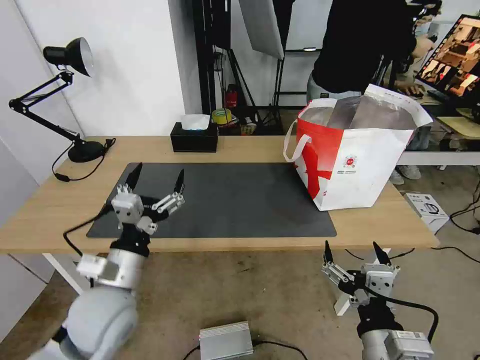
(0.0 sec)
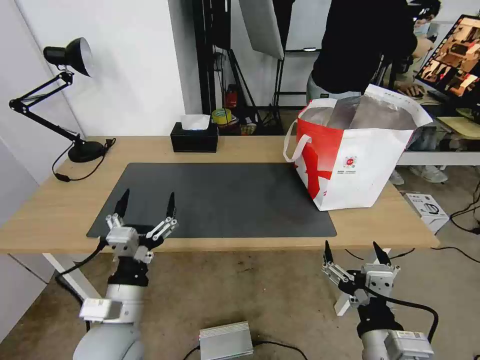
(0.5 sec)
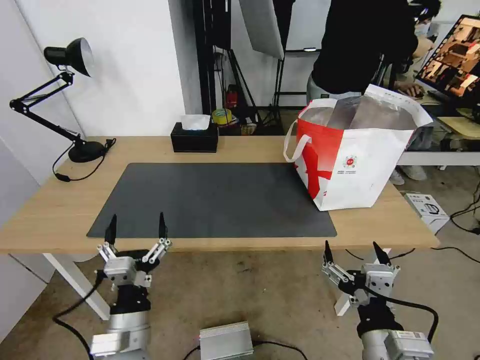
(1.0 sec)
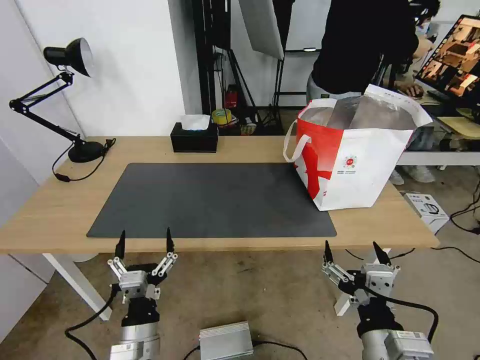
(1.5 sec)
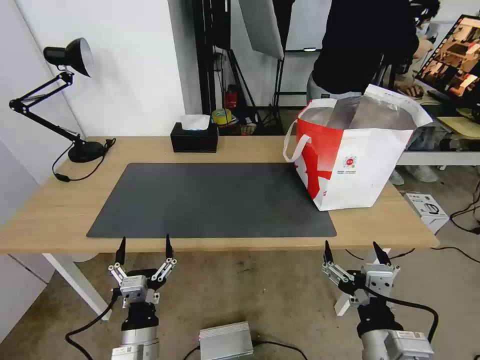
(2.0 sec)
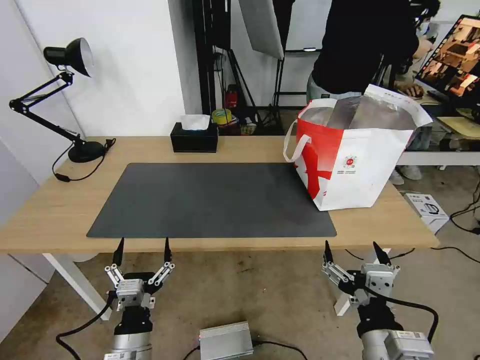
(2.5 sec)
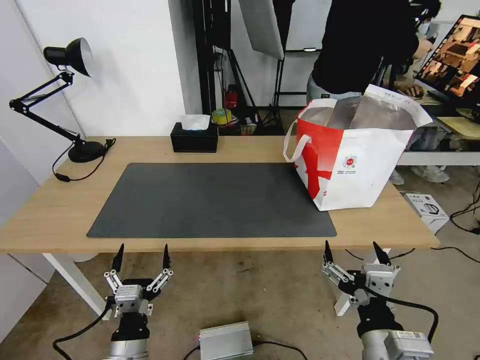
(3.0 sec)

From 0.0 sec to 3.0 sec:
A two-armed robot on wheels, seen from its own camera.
Task of the whole recording: Pick up the trash from the table and place it into the takeout bag.
From 0.0 sec to 1.5 sec: The left gripper is displaced downward and backward by some 15 cm.
From 1.5 sec to 3.0 sec: The grippers stay close to where they were, moving slightly.

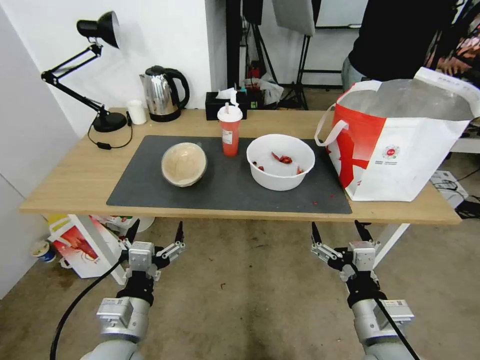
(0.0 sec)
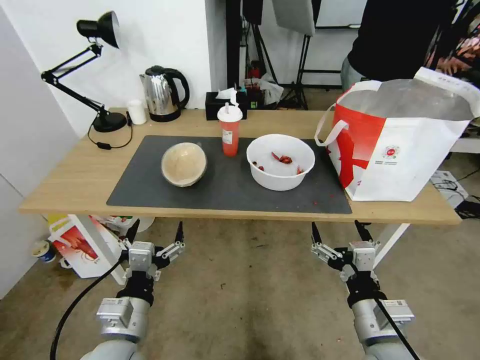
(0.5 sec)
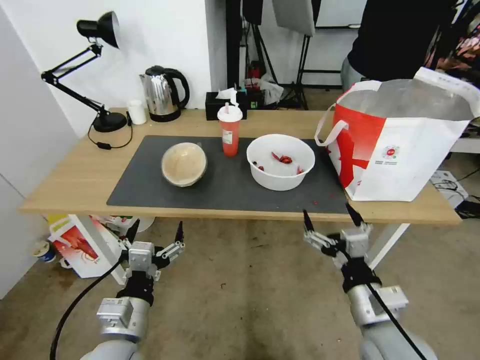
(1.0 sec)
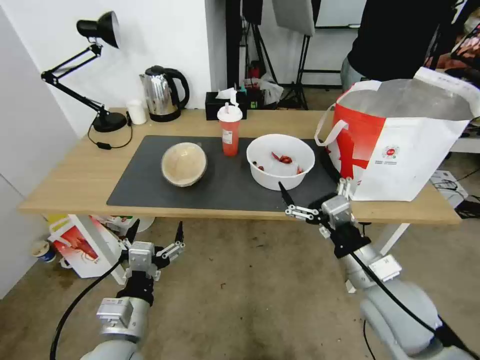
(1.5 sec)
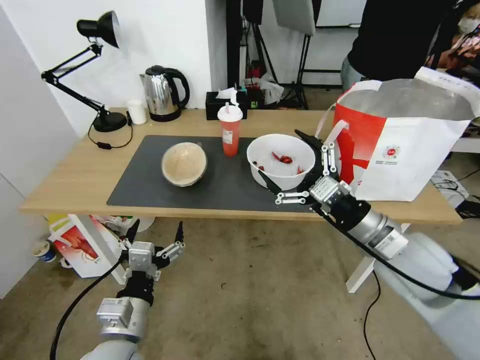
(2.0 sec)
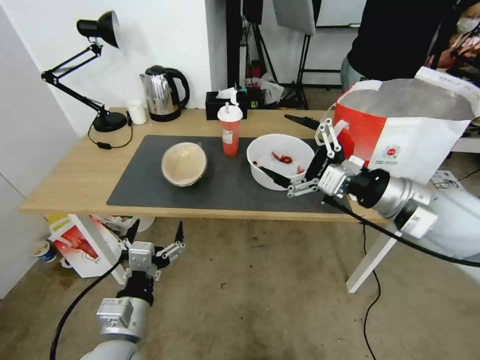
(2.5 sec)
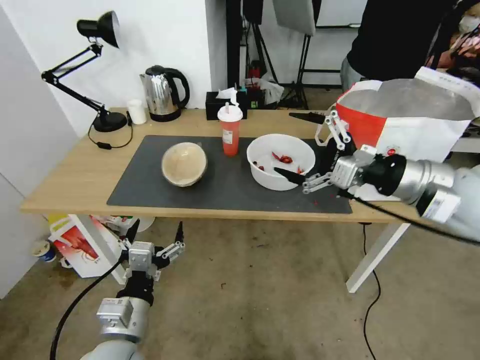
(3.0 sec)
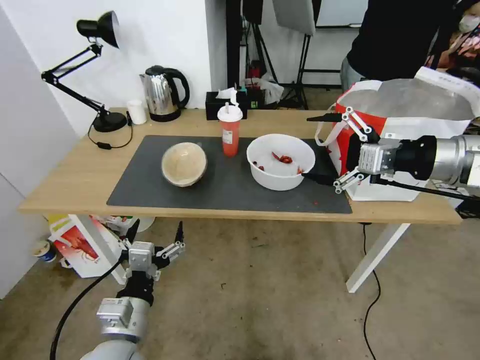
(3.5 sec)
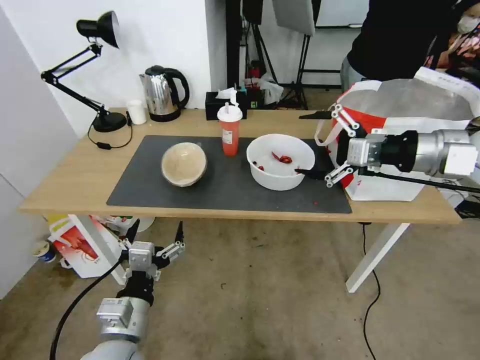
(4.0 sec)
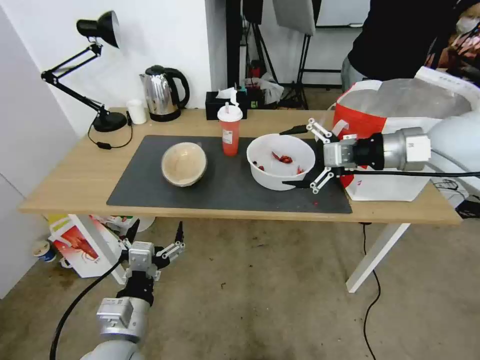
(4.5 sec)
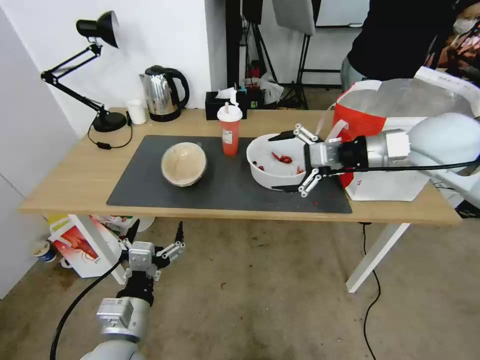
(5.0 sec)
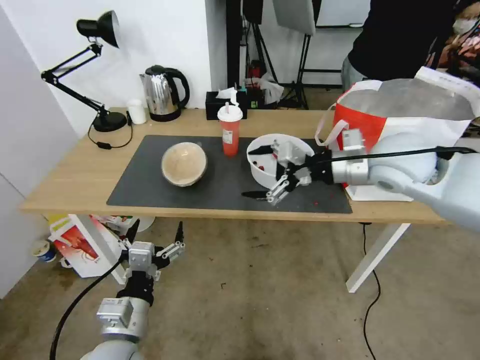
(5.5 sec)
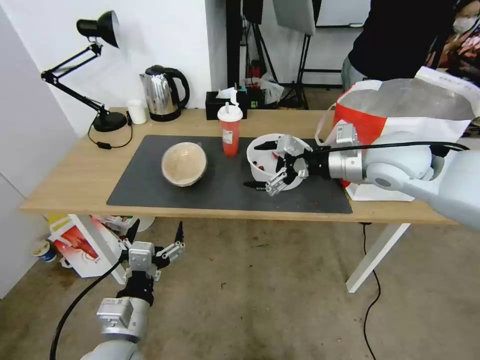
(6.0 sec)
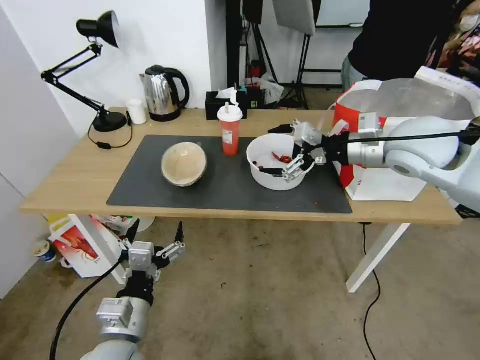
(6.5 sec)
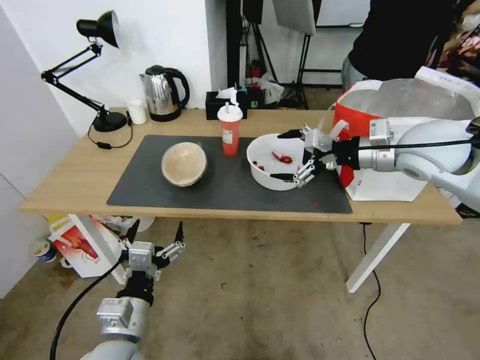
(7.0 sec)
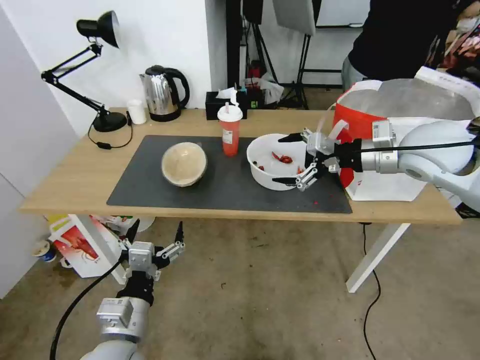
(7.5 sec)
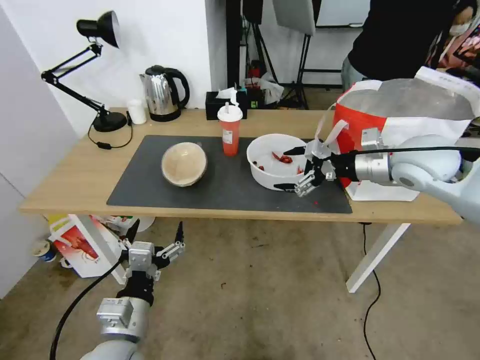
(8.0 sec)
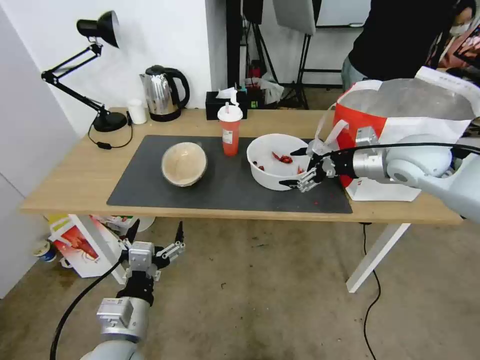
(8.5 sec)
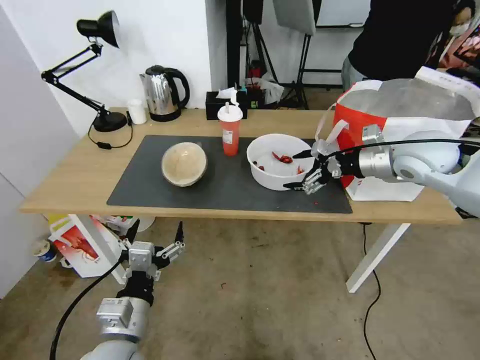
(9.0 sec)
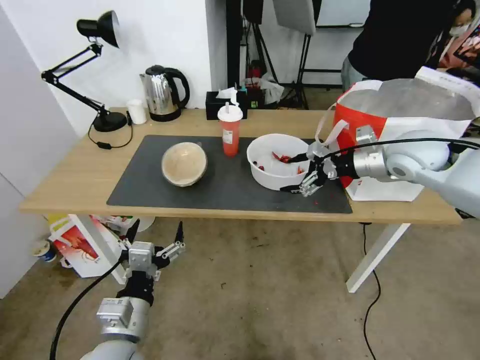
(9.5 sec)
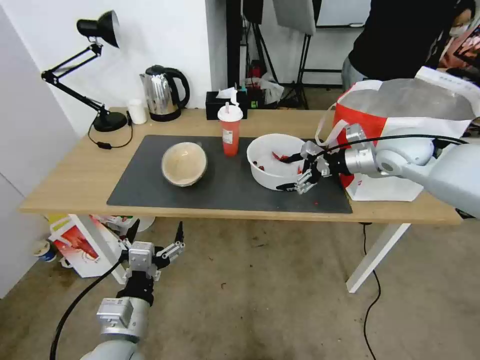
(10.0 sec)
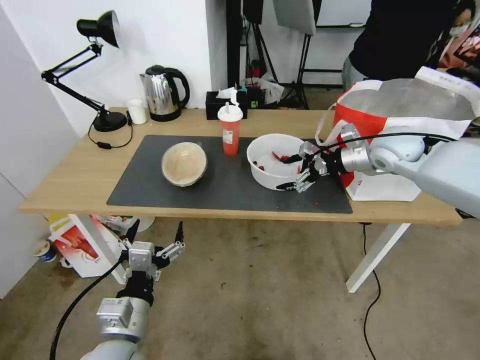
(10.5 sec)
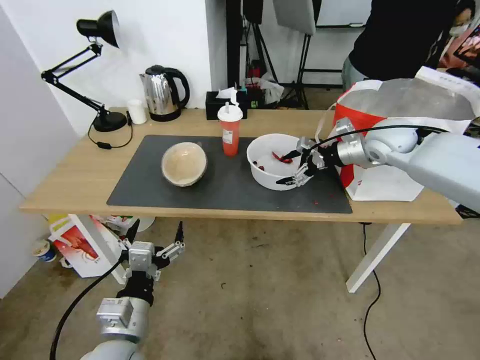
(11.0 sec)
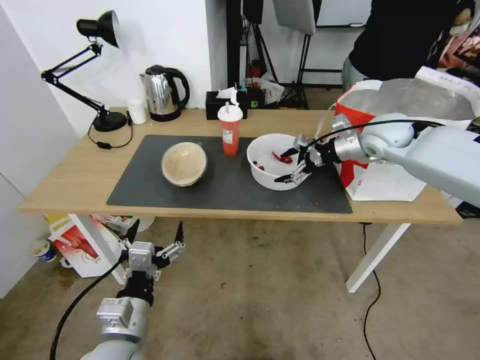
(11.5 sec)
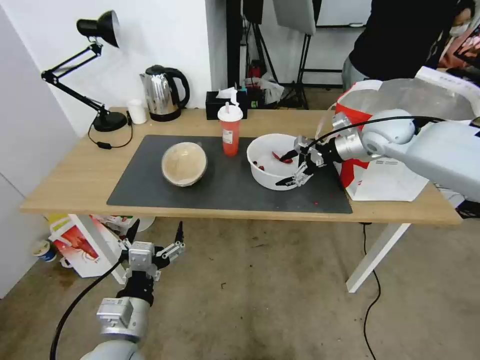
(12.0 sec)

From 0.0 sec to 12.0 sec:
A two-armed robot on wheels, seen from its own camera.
Task of the whole recording: Pick up the trash from the table and place it into the takeout bag.
From 2.0 sec to 4.0 sec: The right gripper goes some 20 cm upward, to the right and forward.
From 4.0 sec to 6.0 sec: The right gripper travels to the left, downward and forward by some 10 cm.
From 6.0 sec to 8.0 sec: The right gripper moves to the right, roughly 5 cm.
From 8.0 sec to 10.0 sec: The right gripper moves forward, about 5 cm.
From 10.0 sec to 12.0 sec: The right gripper is displaced forward by roughly 5 cm.

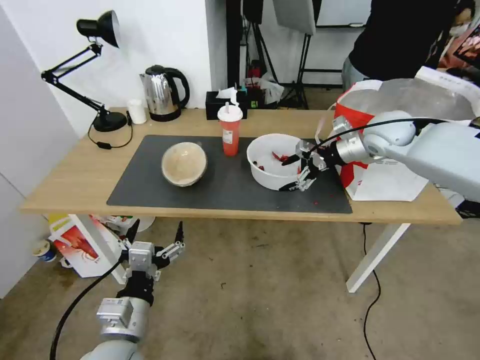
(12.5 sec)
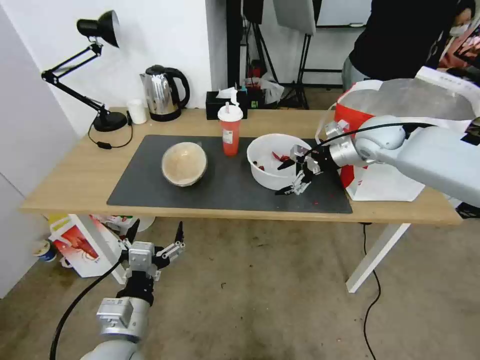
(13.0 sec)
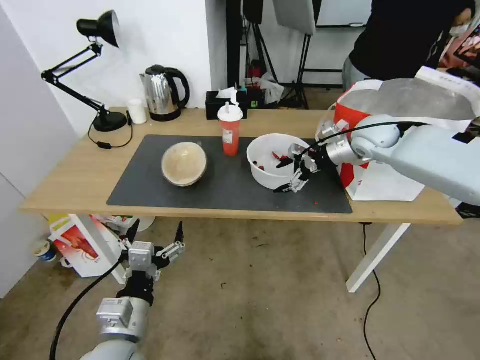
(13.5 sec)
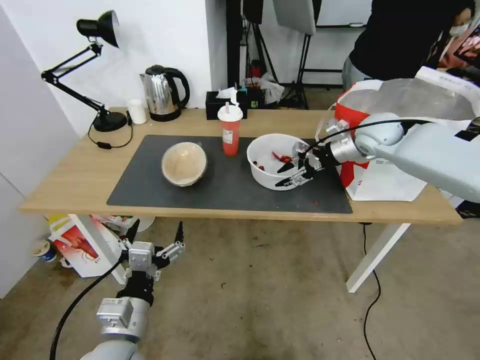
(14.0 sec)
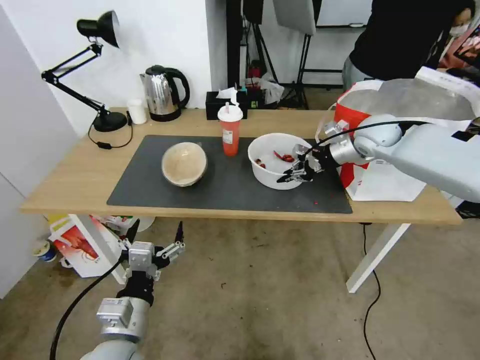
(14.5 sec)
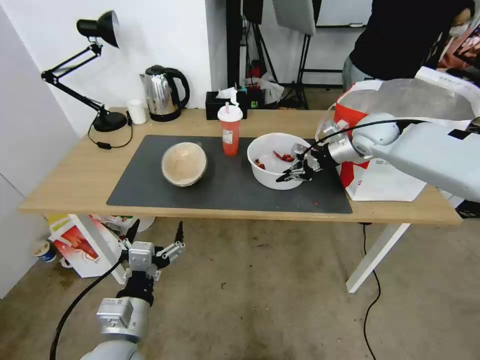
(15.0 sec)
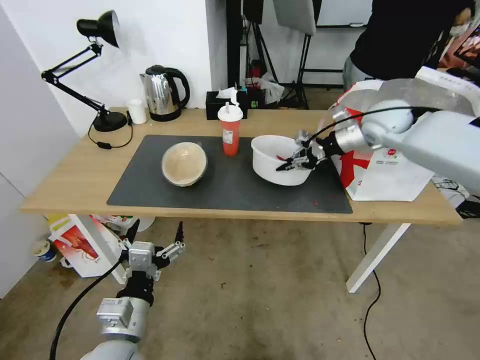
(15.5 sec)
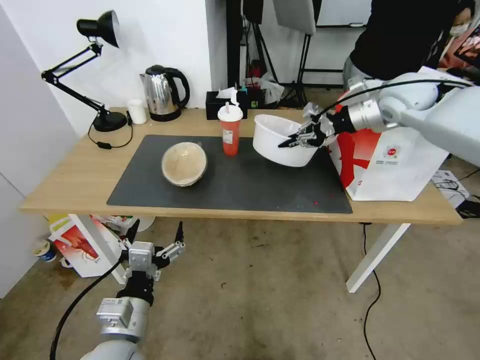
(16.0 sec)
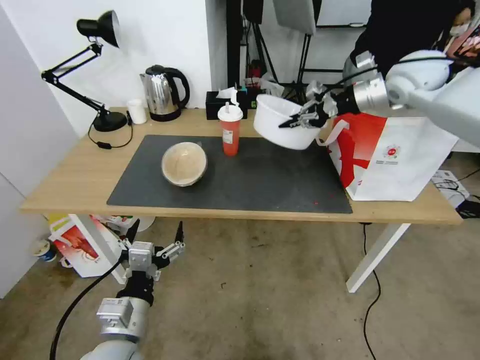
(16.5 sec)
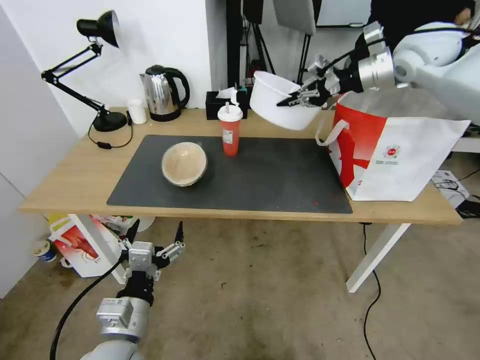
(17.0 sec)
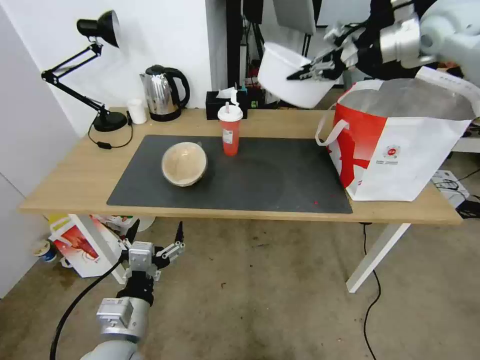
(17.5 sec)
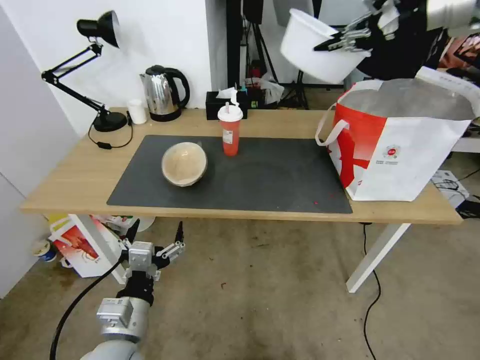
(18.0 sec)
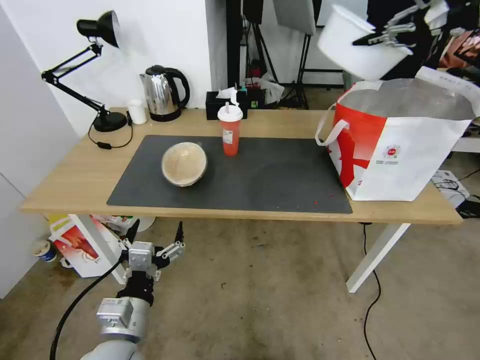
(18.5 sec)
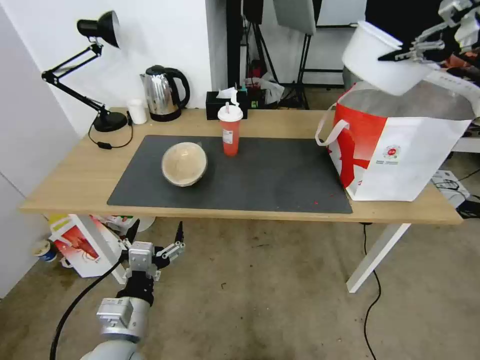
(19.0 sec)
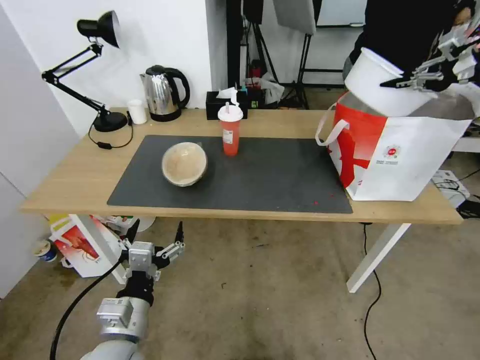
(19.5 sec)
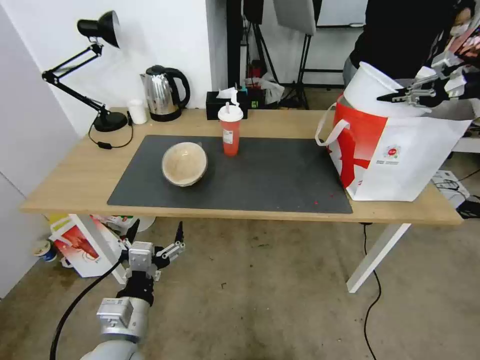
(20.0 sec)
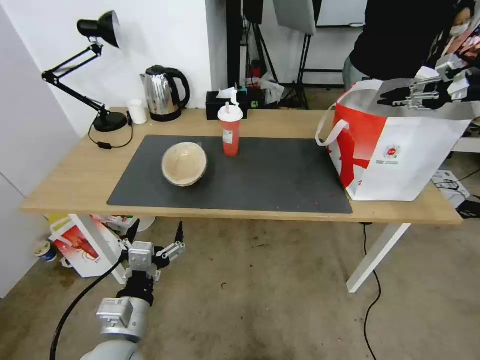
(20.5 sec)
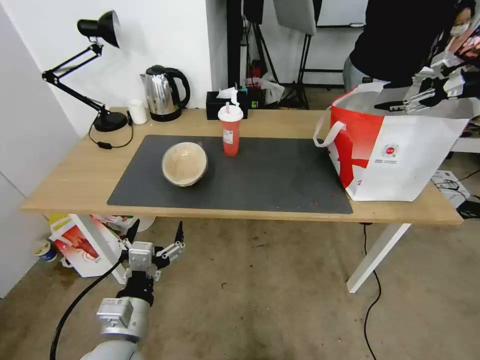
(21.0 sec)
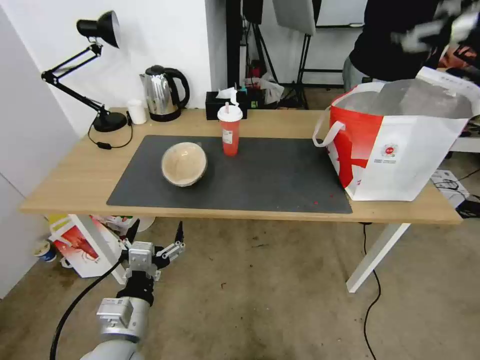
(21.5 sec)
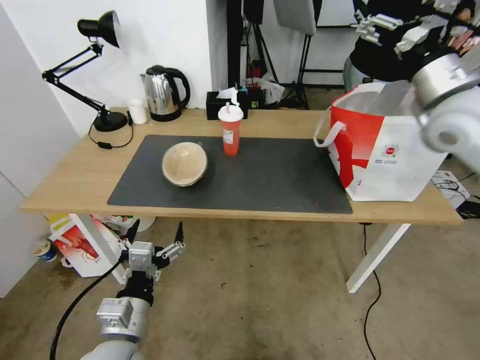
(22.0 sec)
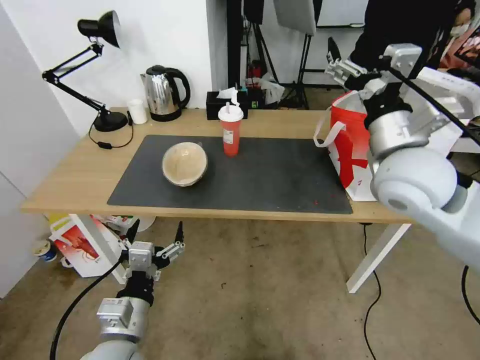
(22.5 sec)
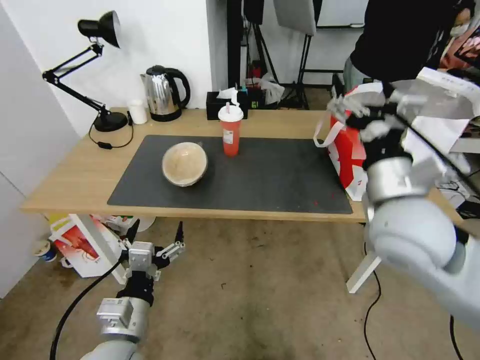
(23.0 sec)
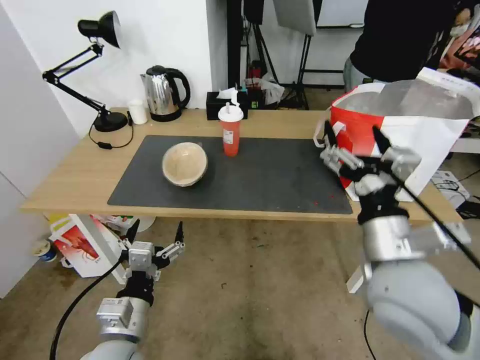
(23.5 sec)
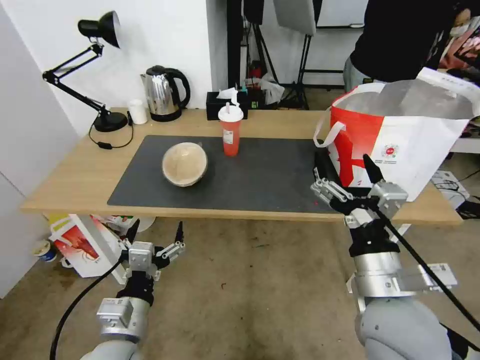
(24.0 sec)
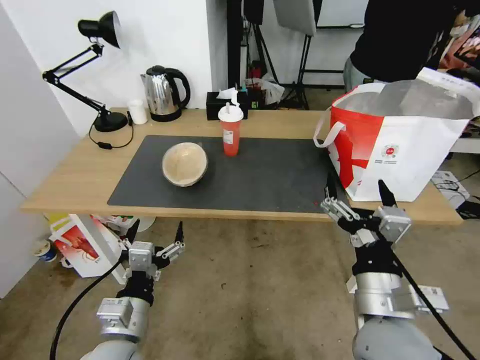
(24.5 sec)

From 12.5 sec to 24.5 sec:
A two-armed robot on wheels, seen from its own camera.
Task of the whole recording: Pick up the trash from the table and place it into the takeout bag.
From 12.5 sec to 14.5 sec: The right gripper closes its fingers.
From 14.5 sec to 16.5 sec: The right gripper is displaced upward by approximately 15 cm.
From 16.5 sec to 18.5 sec: The right gripper is displaced upward and to the right by approximately 20 cm.
From 18.5 sec to 20.5 sec: The right gripper is displaced downward and to the right by about 15 cm.
From 20.5 sec to 22.5 sec: The right gripper shifts some 35 cm to the left and backward, and opens its fingers.
From 22.5 sec to 24.5 sec: The right gripper moves backward and downward, approximately 25 cm.
